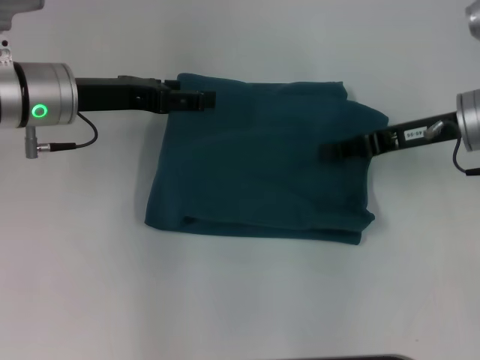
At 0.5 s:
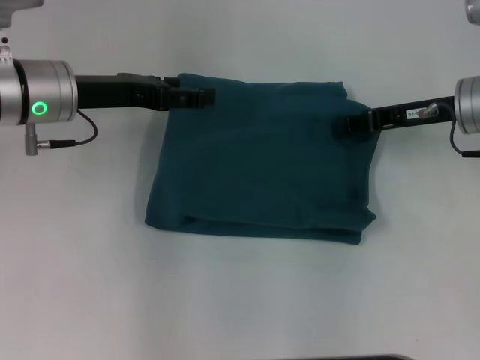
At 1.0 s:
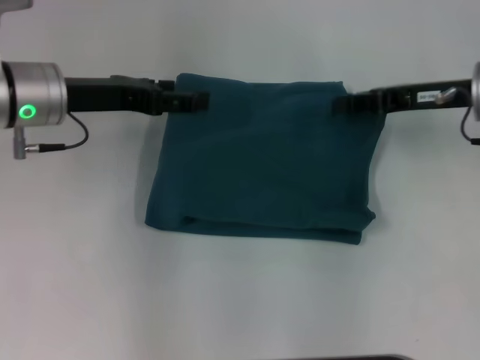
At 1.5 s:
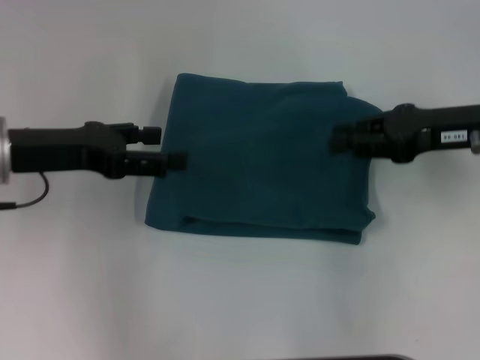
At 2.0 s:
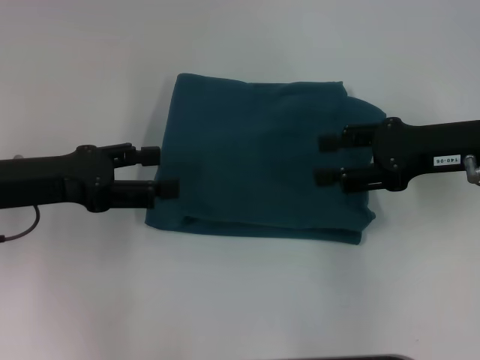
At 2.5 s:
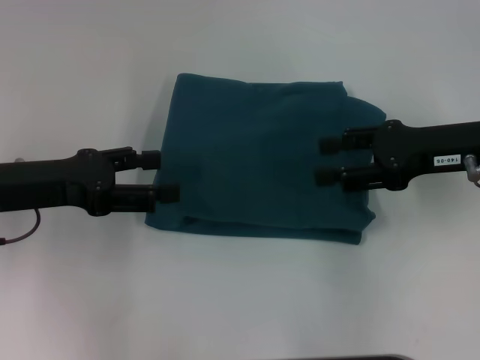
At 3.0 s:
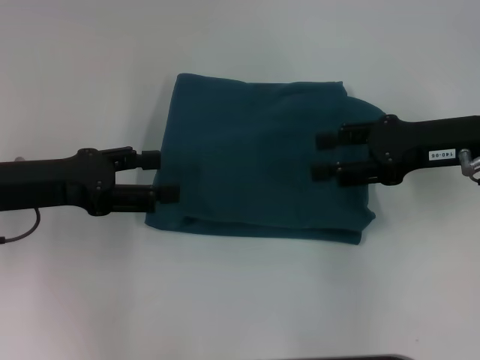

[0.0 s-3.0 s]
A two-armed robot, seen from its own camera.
0.0 to 1.5 s: The left gripper is displaced backward by approximately 5 cm.
1.5 to 3.0 s: The right gripper opens up.

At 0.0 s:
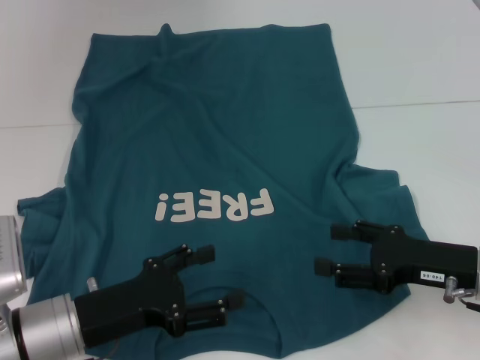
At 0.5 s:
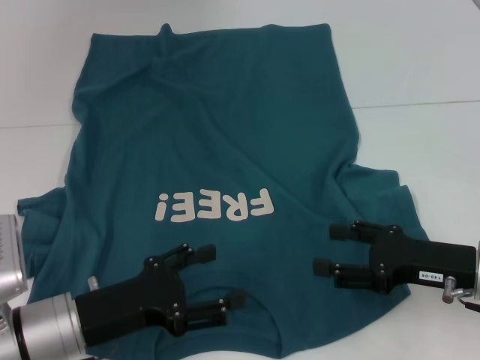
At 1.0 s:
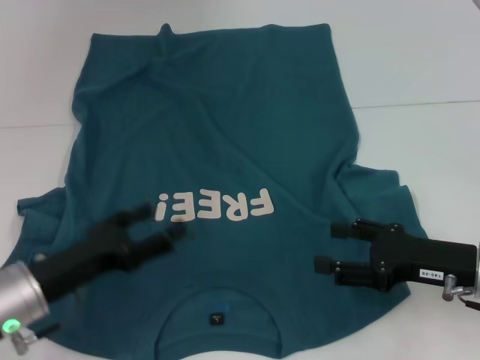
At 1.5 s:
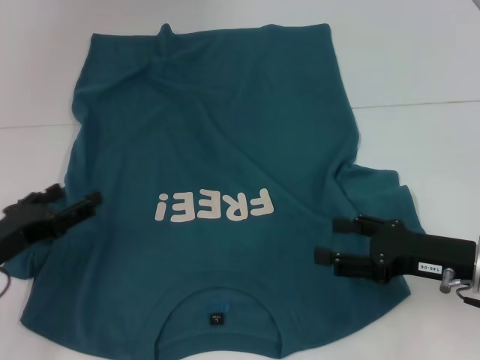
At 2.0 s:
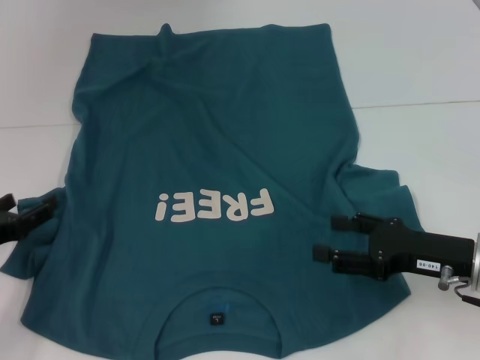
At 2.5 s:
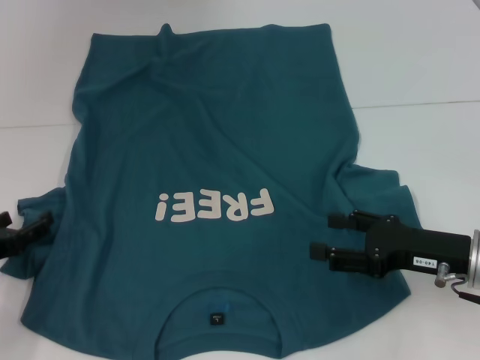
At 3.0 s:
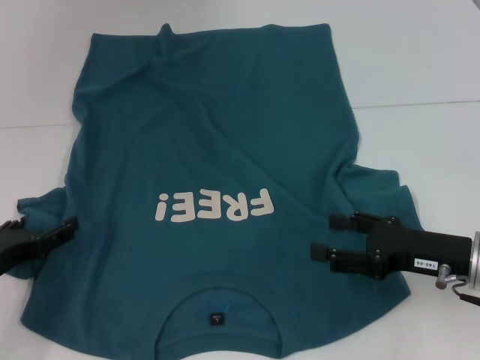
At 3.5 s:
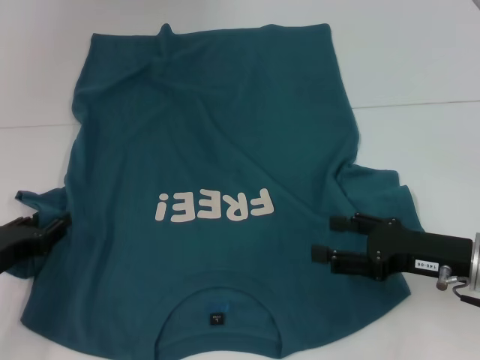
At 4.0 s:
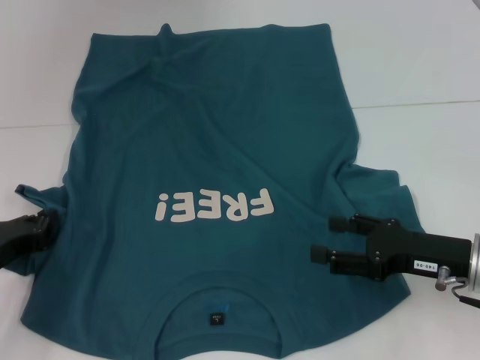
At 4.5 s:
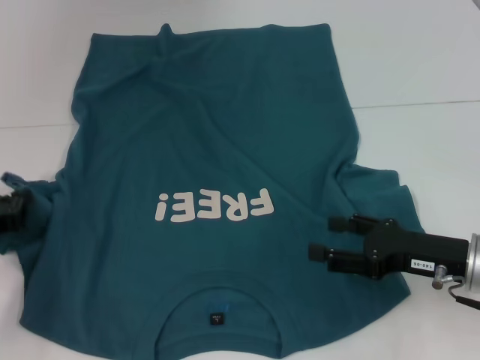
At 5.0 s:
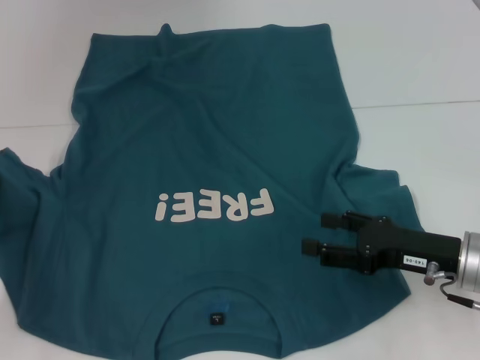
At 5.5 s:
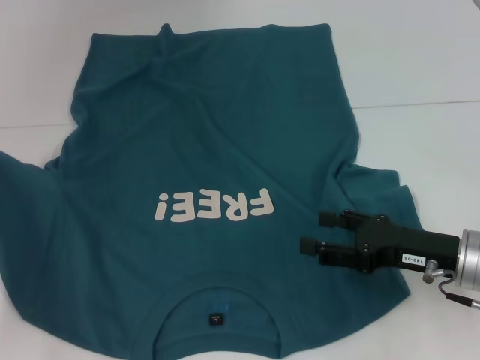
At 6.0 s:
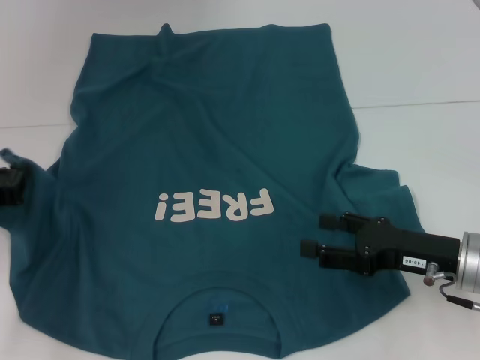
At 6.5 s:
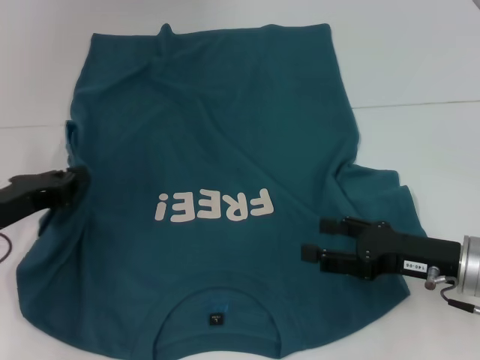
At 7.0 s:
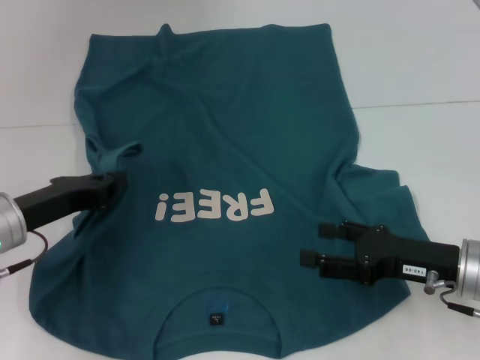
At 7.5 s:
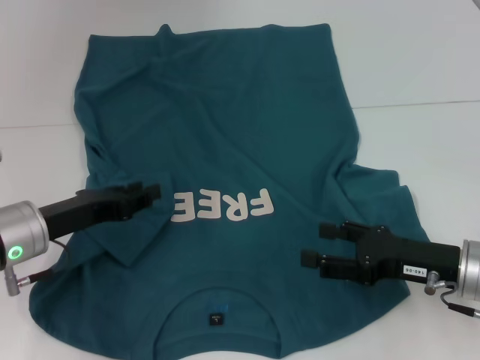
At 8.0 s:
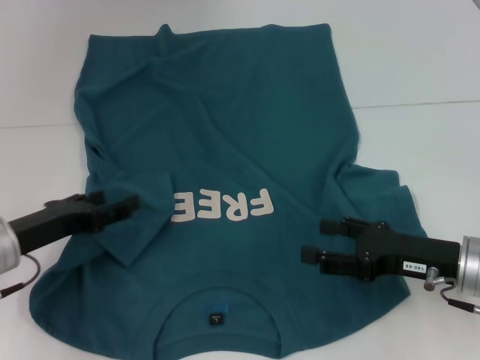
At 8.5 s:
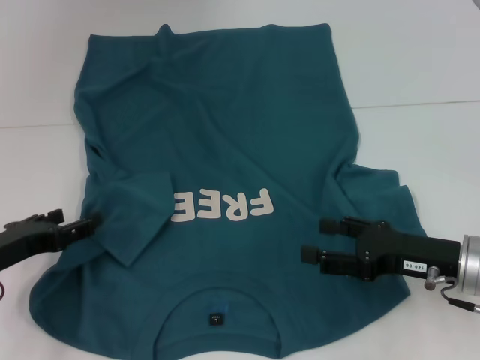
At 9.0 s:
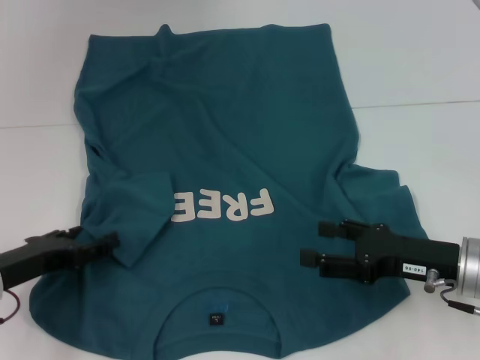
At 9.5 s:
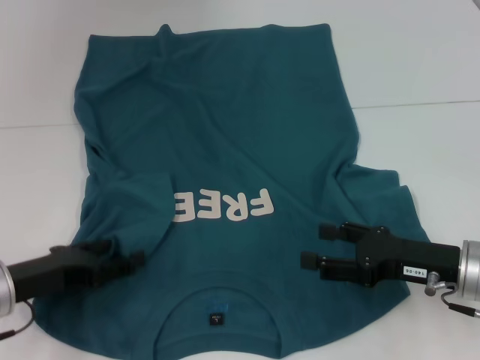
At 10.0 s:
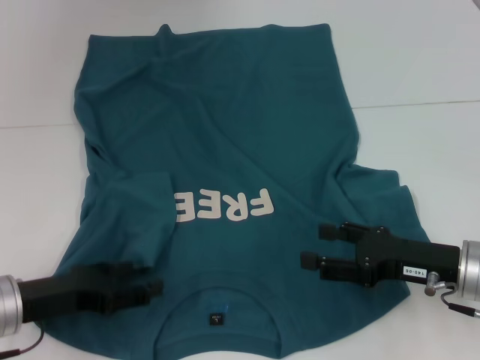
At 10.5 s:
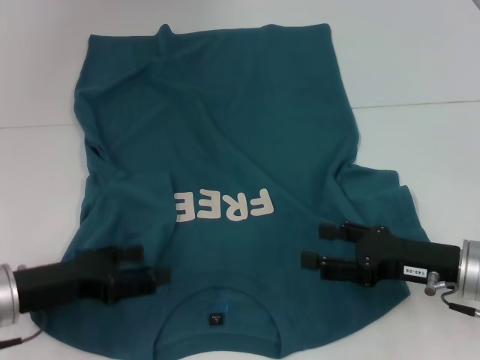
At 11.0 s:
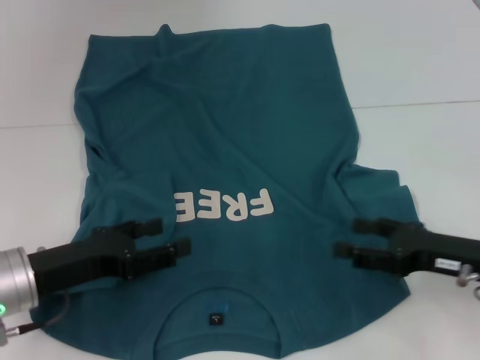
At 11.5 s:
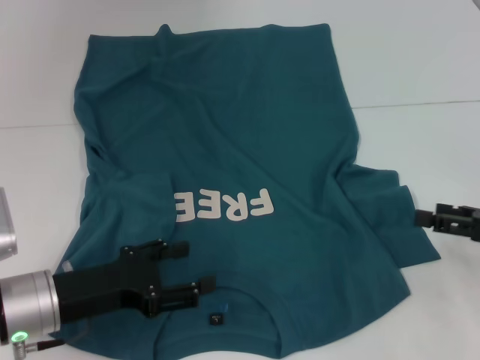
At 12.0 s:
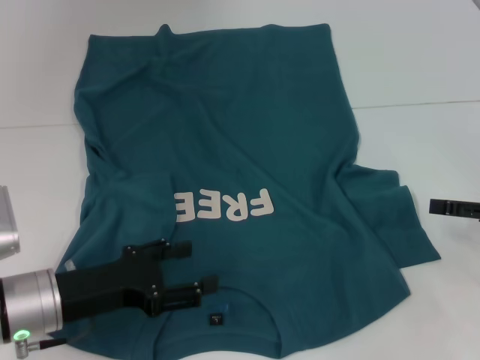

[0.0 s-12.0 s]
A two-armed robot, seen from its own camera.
Step, 0.0 to 10.5 s: Fold the bottom left sleeve with your left hand.
0.0 to 2.0 s: The left gripper travels to the left by approximately 10 cm.
2.0 to 4.0 s: The left gripper closes its fingers.
4.0 to 6.0 s: The left gripper goes about 5 cm upward.
6.0 to 8.0 s: The left gripper travels to the right by approximately 5 cm, and opens up.
8.0 to 10.0 s: The grippers stay close to where they were, moving slightly.
10.0 to 12.0 s: The right gripper is displaced to the right by about 10 cm.

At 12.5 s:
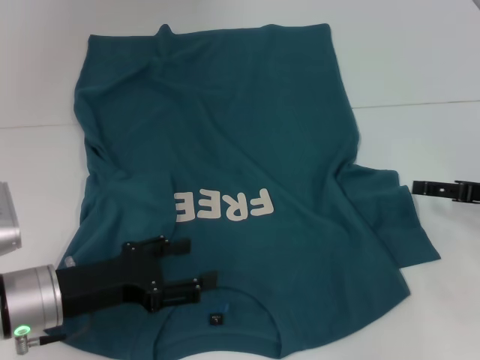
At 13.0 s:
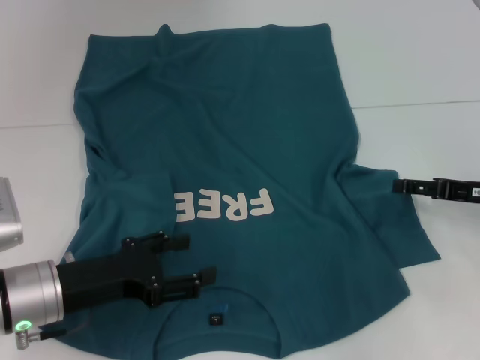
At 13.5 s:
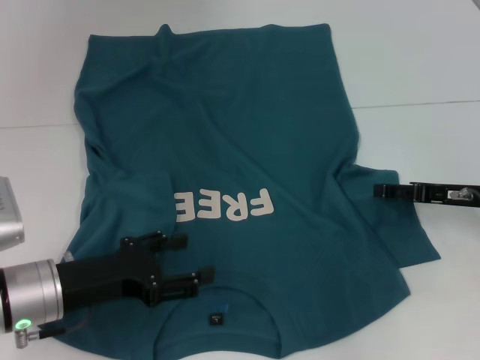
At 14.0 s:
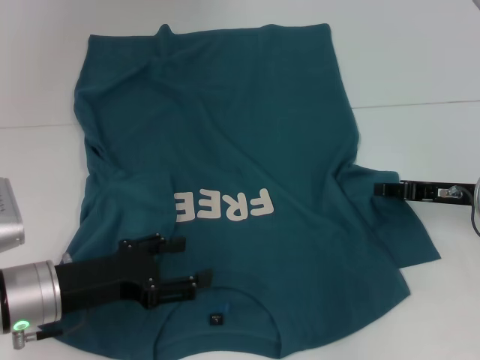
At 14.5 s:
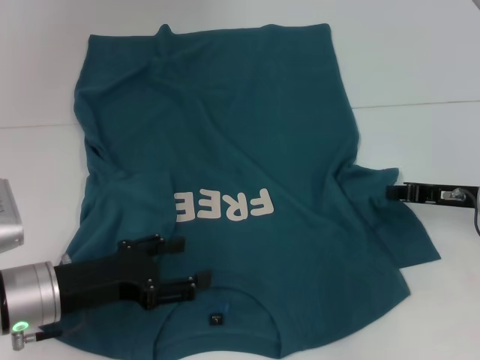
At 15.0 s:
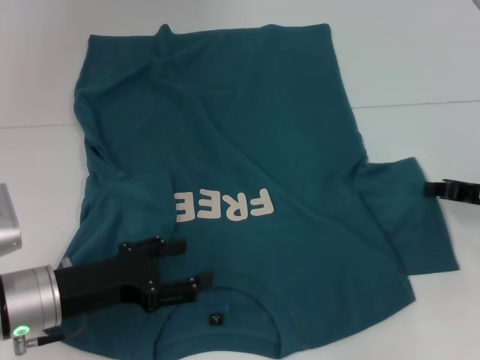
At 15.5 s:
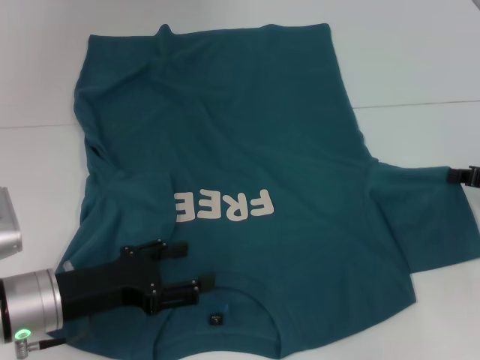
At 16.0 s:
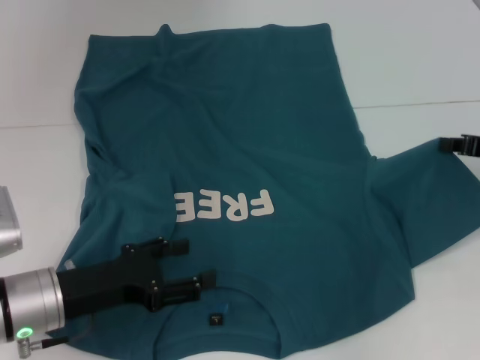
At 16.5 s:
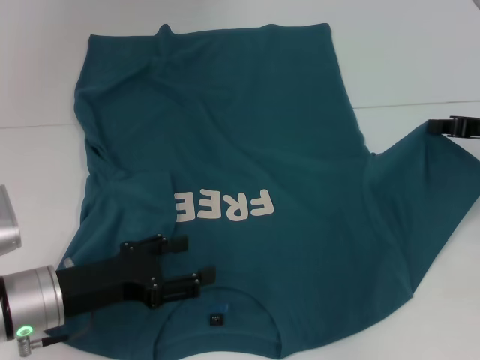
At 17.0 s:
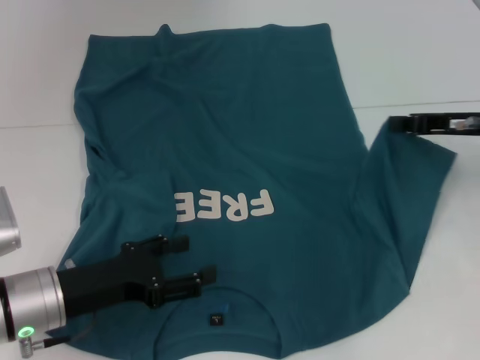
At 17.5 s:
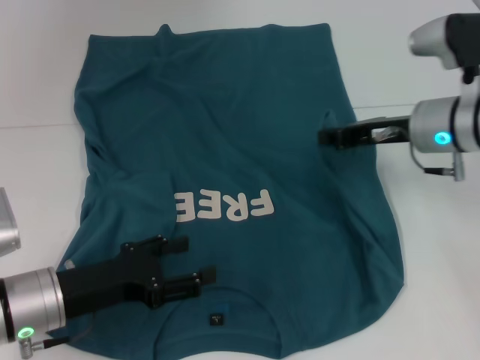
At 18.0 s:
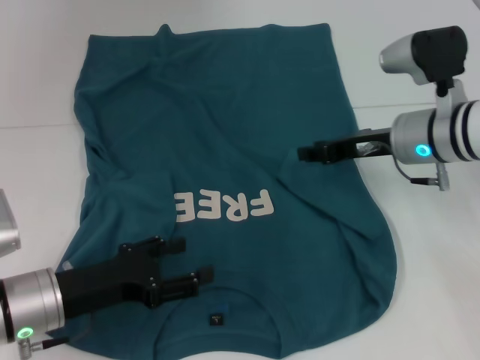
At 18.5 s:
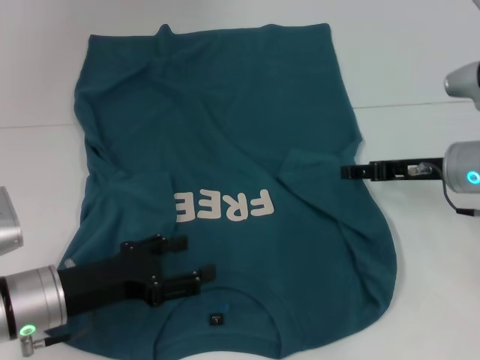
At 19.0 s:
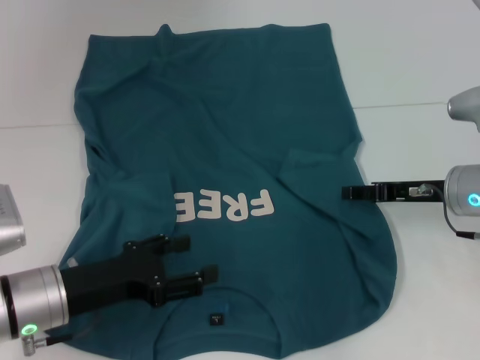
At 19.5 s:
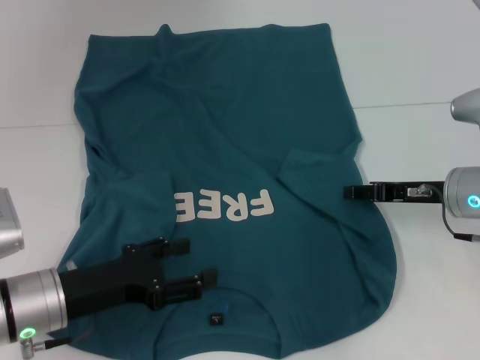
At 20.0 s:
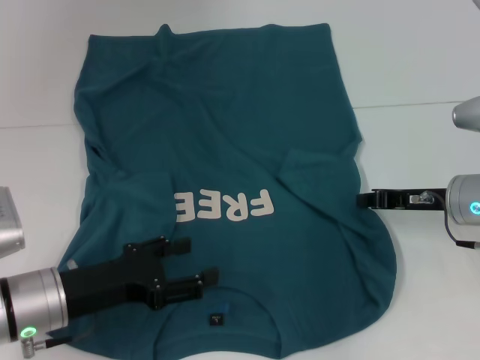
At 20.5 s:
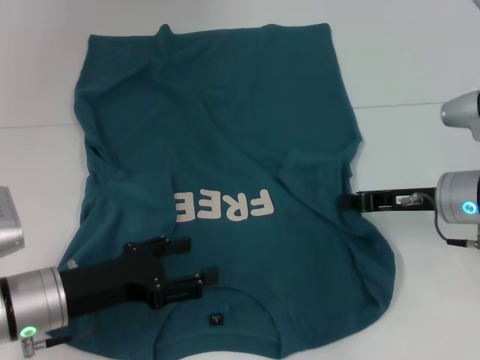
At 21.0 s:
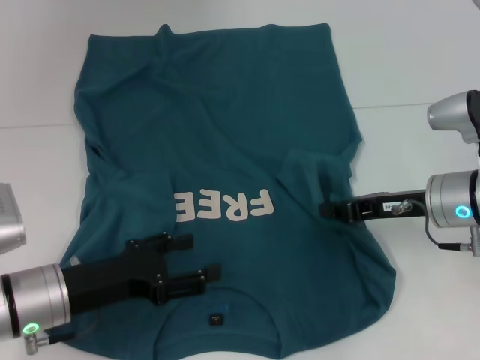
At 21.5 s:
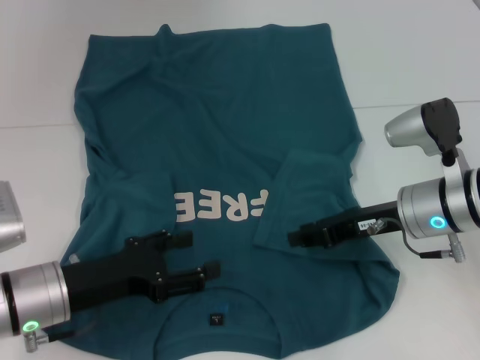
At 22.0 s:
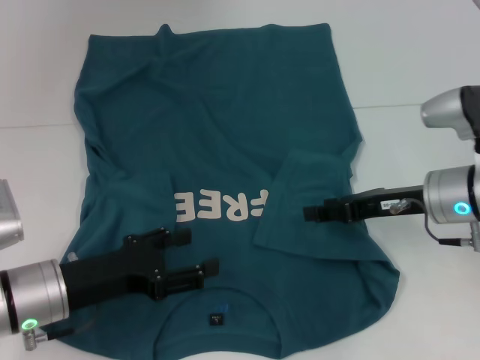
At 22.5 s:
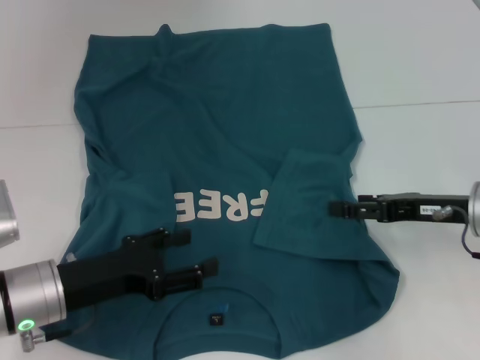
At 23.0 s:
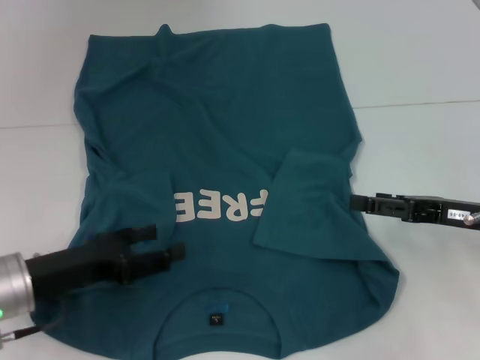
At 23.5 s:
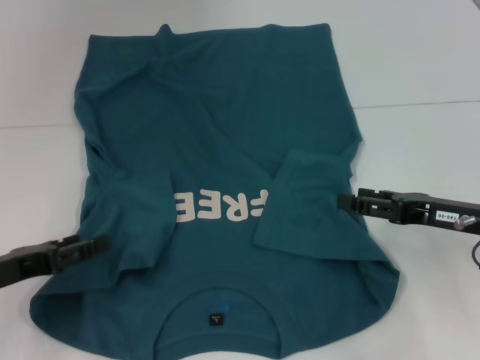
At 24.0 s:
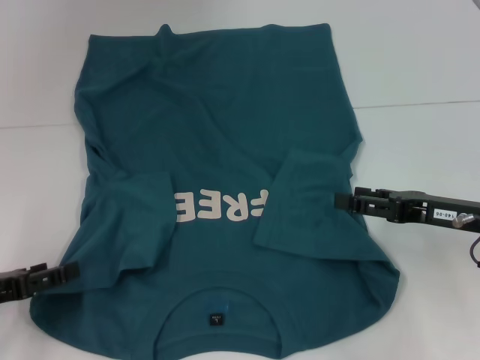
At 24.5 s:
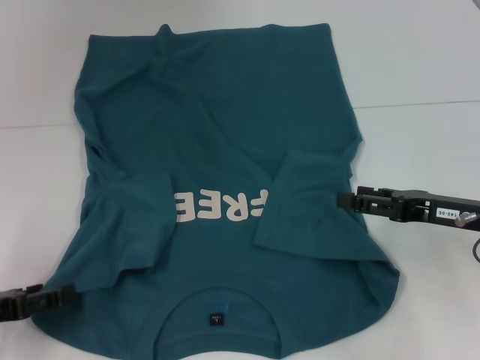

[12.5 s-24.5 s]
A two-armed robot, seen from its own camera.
Step, 12.5 to 21.5 s: Fold the bottom right sleeve to the right.
12.5 to 14.5 s: The right gripper changes place by approximately 5 cm, and closes up.
14.5 to 16.5 s: The right gripper heads upward, covering roughly 5 cm.
16.5 to 18.5 s: The right gripper heads to the left, covering some 10 cm, and opens its fingers.
18.5 to 20.5 s: The right gripper closes.
20.5 to 22.5 s: The right gripper opens up.
22.5 to 24.5 s: The left gripper moves to the left, approximately 10 cm.
